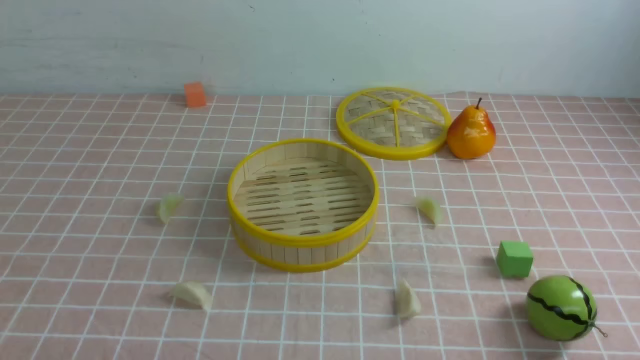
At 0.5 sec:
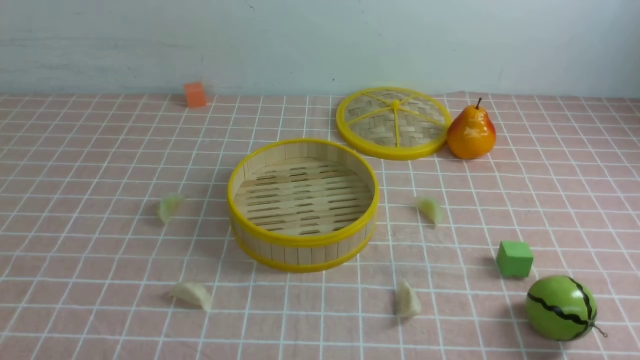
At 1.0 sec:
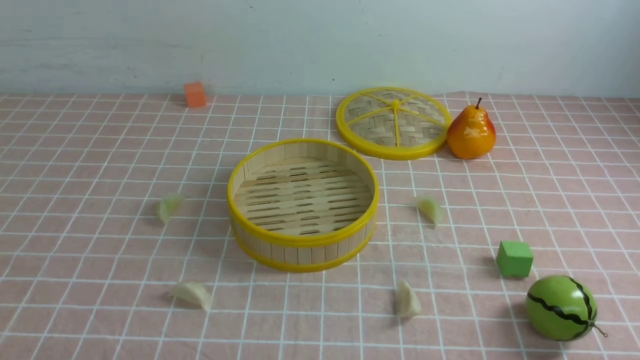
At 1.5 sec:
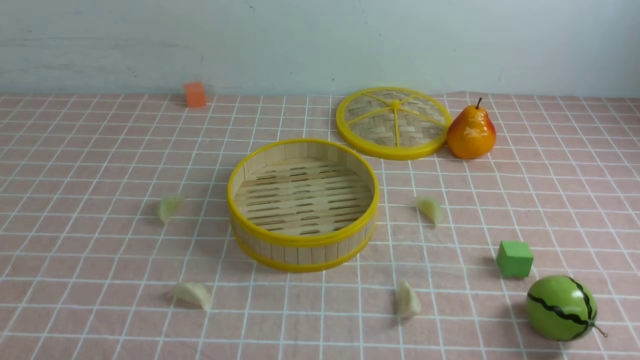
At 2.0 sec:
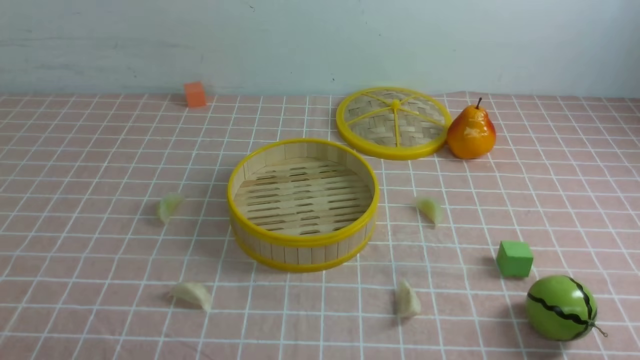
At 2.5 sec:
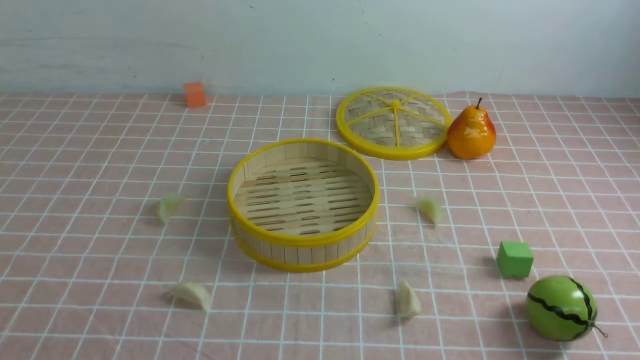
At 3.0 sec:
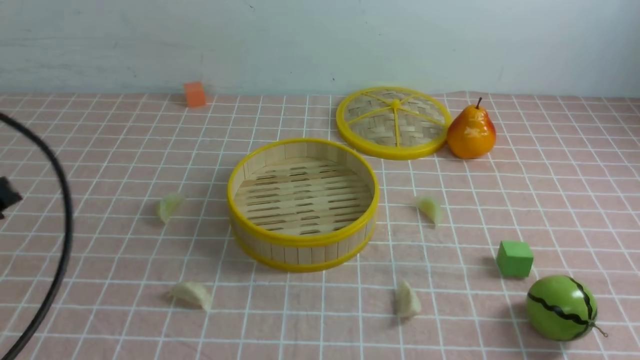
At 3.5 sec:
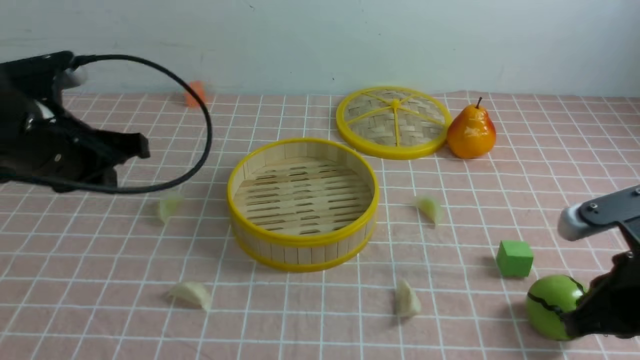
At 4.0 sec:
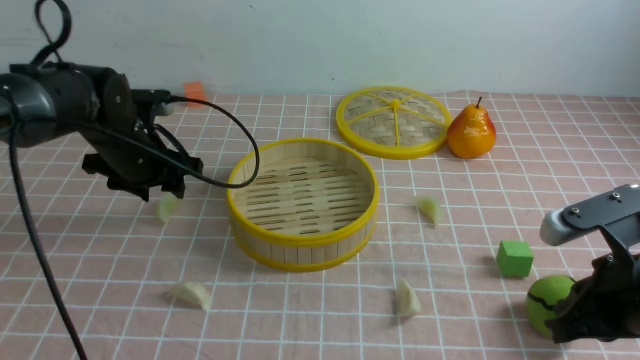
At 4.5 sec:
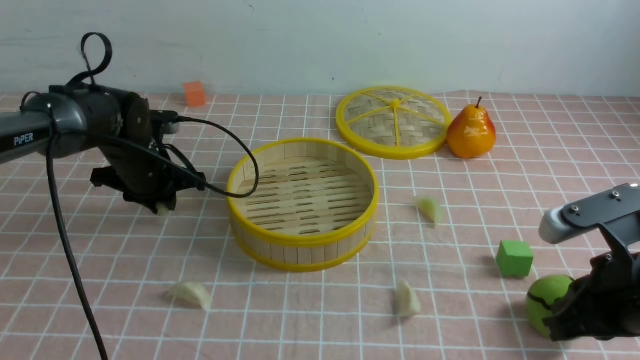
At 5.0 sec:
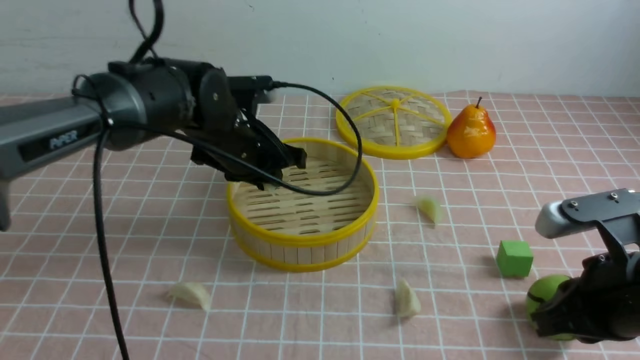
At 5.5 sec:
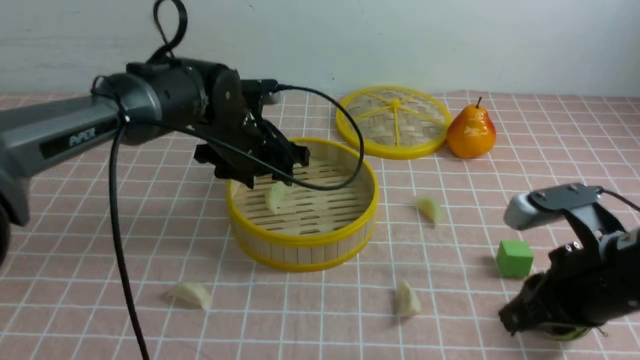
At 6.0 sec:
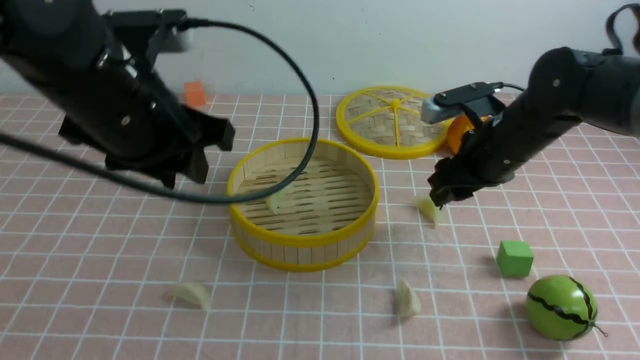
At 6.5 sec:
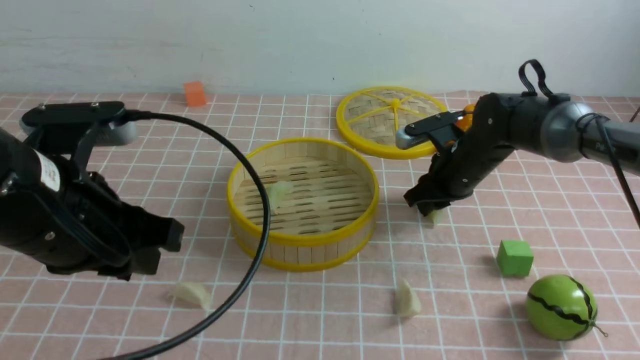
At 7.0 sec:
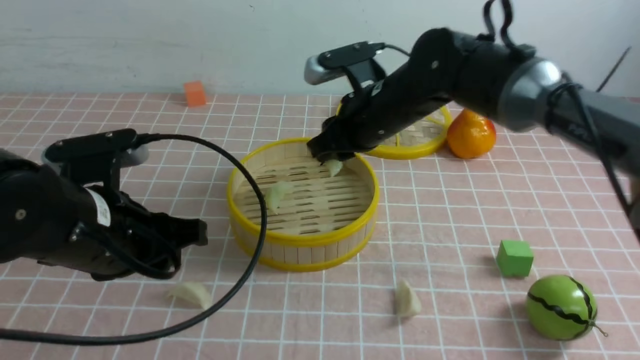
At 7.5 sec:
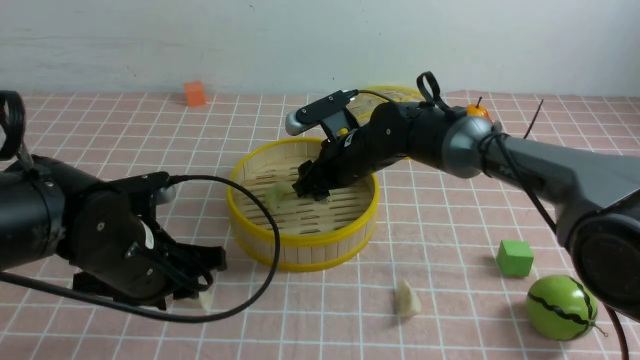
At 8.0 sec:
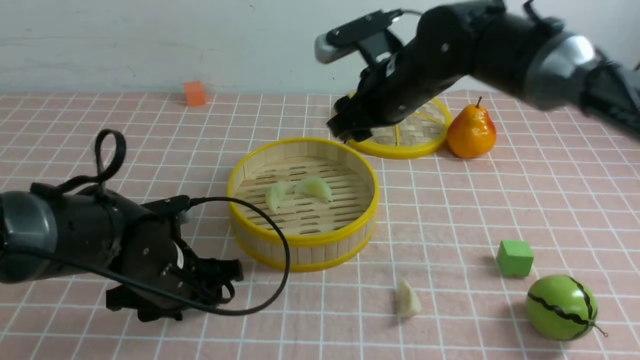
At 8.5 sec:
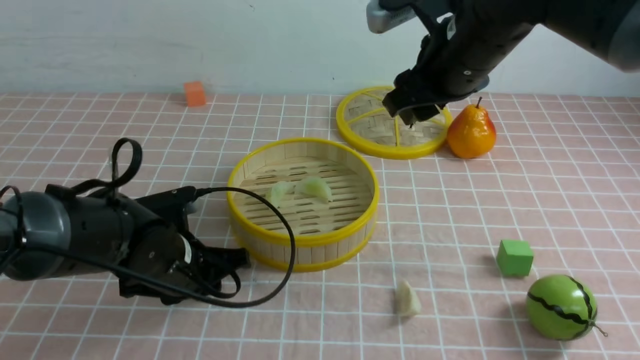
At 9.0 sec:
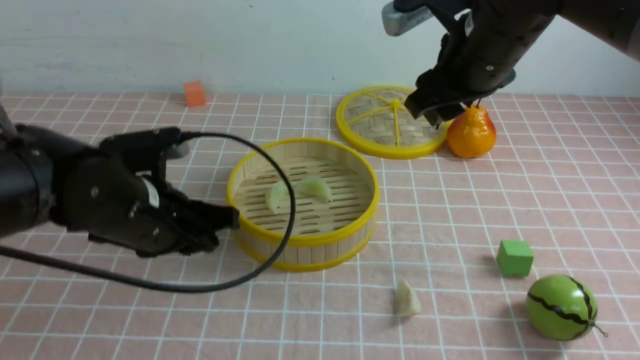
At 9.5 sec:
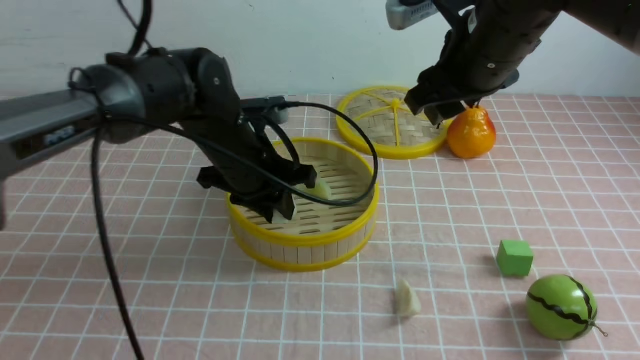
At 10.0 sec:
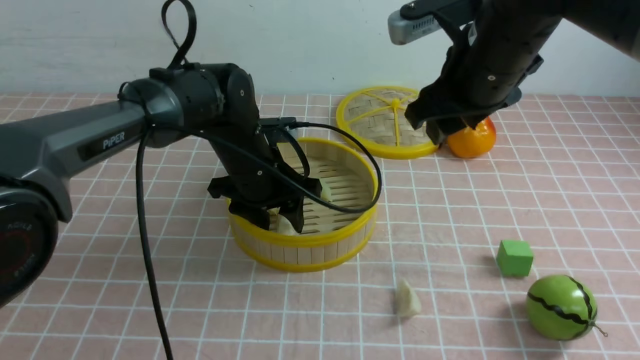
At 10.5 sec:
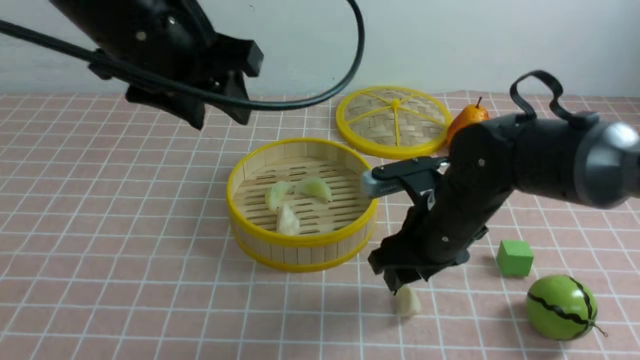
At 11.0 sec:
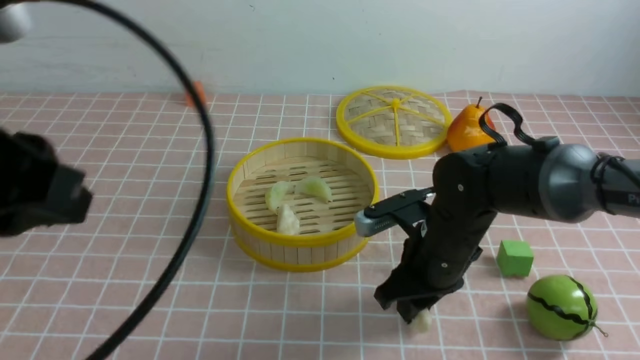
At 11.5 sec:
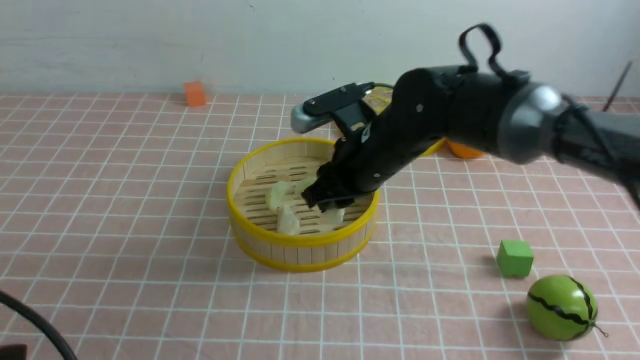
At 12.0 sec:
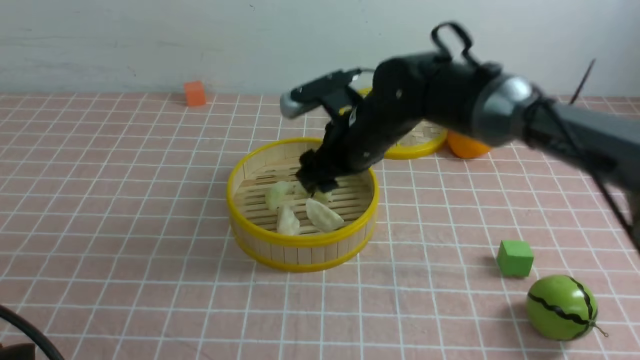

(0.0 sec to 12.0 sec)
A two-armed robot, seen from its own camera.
Task of the whole recording: put the dumplings into the steamer on the table with the pink tablecloth.
Step, 0.0 sec - 4.5 sec: use the left arm to grab a dumpling.
Step, 5.5 sec - 6.5 sec: use the right arm to grab a dumpling.
Step, 7.0 sec - 7.5 sec: use the right arm to put the dumpling into the steamer.
Step, 8.0 sec - 8.5 sec: use the left arm to grab a dumpling.
Step, 9.0 sec - 10.0 sec: use the left arm to put the dumpling into the steamer.
Step, 10.5 sec - 11.0 sec: use the right arm to grab a dumpling.
2.0 sec - 4.0 sec: The right gripper travels forward by approximately 15 cm. Meanwhile the left gripper heads forward, covering approximately 40 cm, and opens its fingers.
4.0 sec - 6.0 sec: The right gripper goes roughly 20 cm forward, and opens; the left gripper is displaced upward, backward and to the right by approximately 20 cm.
6.0 sec - 8.0 sec: The right gripper goes some 15 cm to the left and upward, and closes, then reopens; the left gripper shifts about 20 cm downward.
8.0 sec - 10.0 sec: The left gripper shifts approximately 15 cm forward, to the right and upward, and closes, then reopens, while the right gripper heads backward and to the right, covering about 5 cm.
10.0 sec - 12.0 sec: The right gripper travels to the left by approximately 10 cm, and reaches some 15 cm downward, then returns, while the left gripper heads backward and to the left, covering approximately 35 cm, and closes up.

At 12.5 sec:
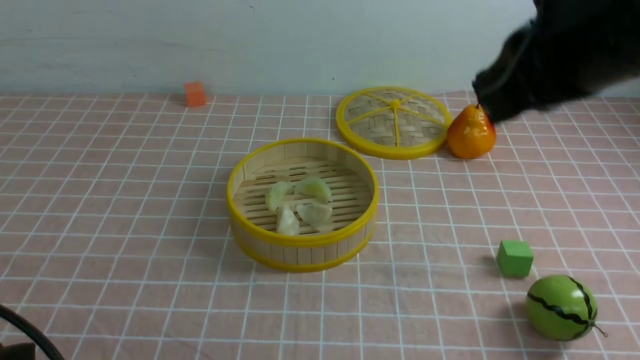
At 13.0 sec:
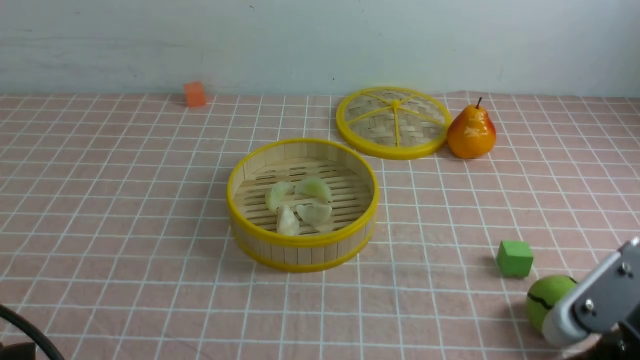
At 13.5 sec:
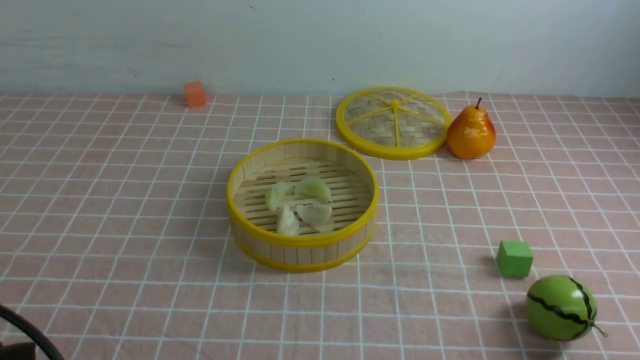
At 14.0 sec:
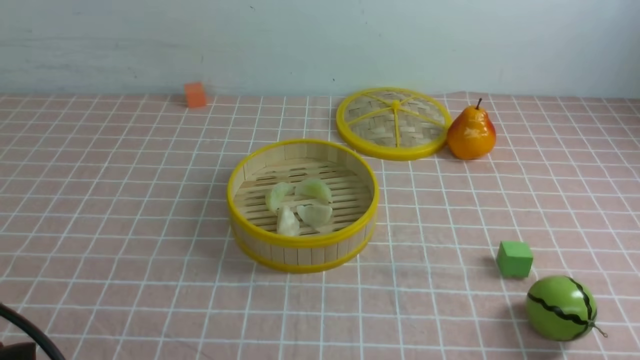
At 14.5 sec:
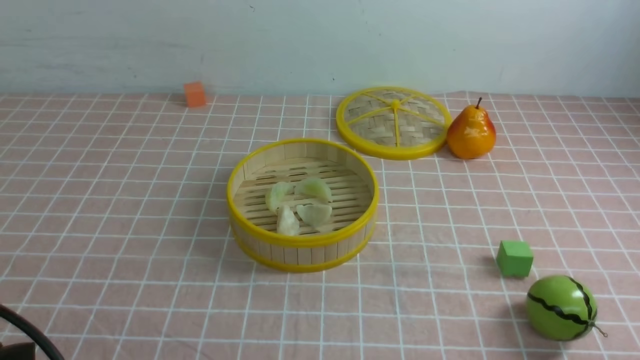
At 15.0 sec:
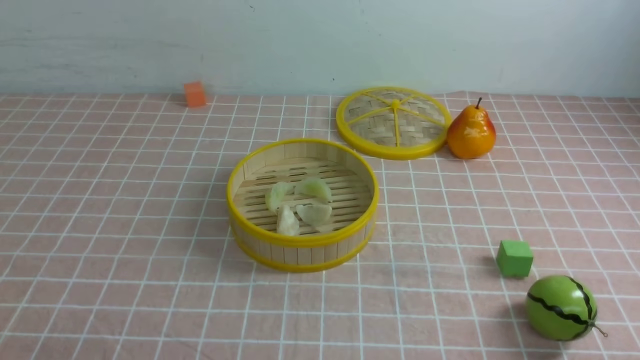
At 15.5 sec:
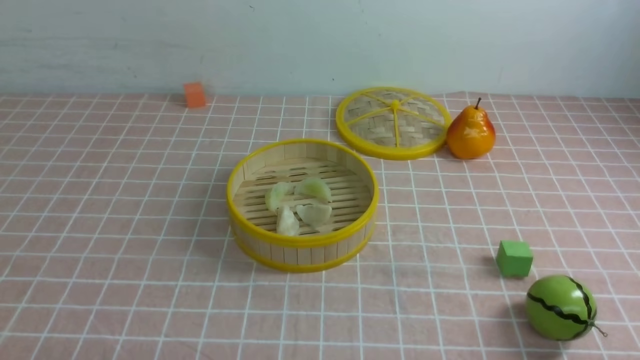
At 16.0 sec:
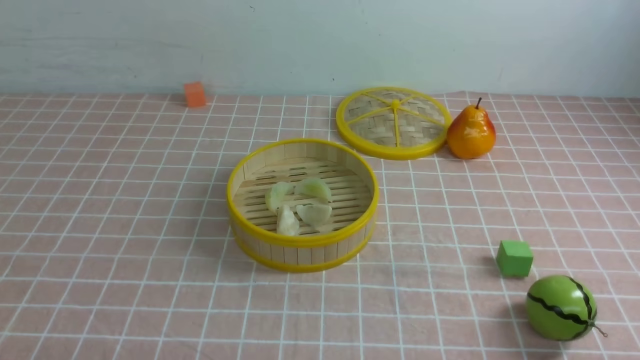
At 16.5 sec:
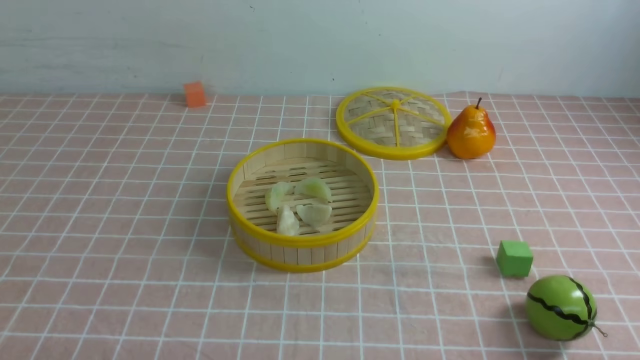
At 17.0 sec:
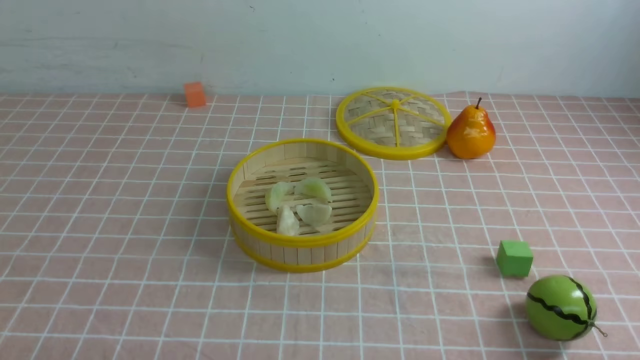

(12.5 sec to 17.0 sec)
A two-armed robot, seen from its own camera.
Task of the whole recording: put the dumplings into the steamer on the table with the pink tablecloth.
12.5 sec - 14.5 sec: The right gripper moves downward, backward and to the right, some 35 cm.
14.5 sec - 17.0 sec: The left gripper goes roughly 10 cm downward, and closes up.

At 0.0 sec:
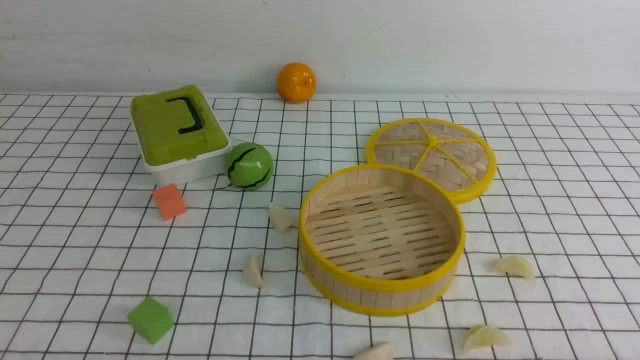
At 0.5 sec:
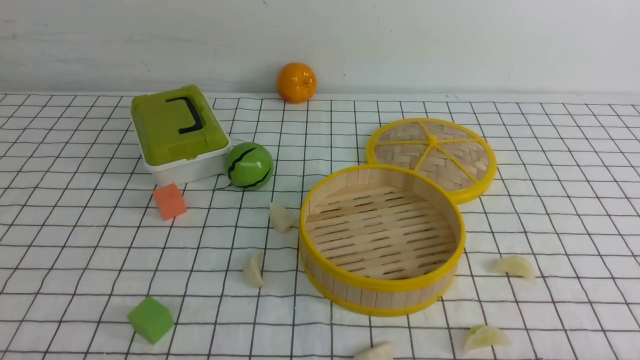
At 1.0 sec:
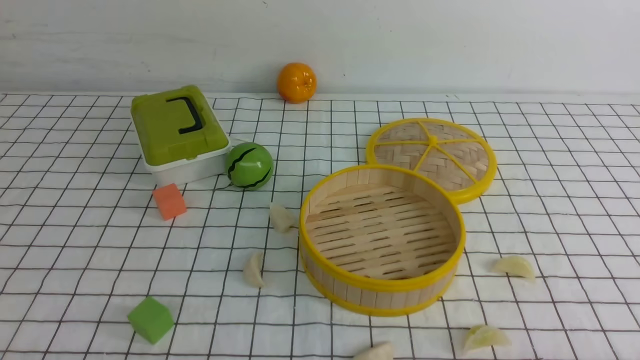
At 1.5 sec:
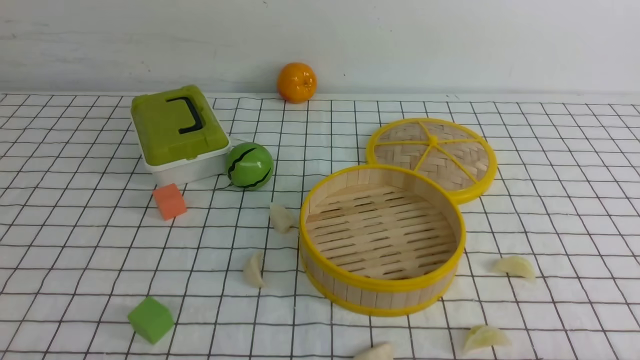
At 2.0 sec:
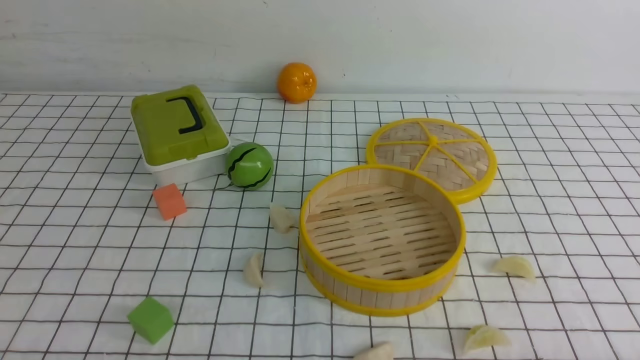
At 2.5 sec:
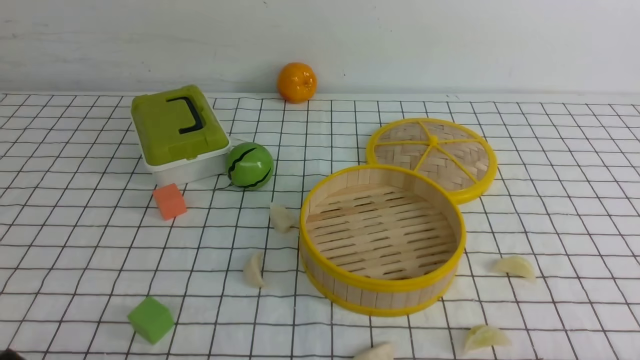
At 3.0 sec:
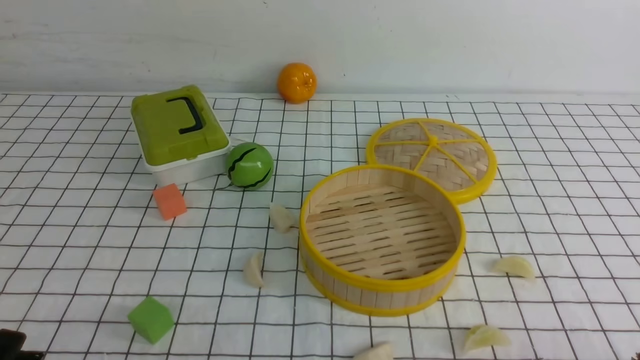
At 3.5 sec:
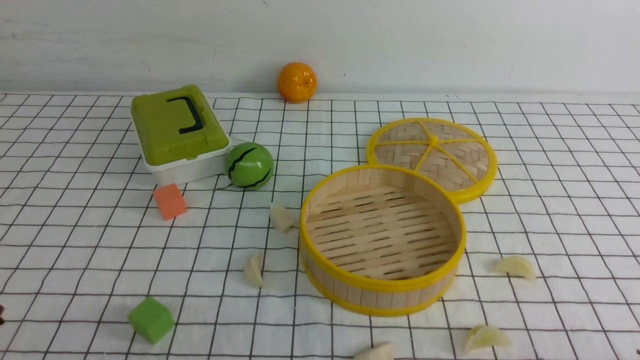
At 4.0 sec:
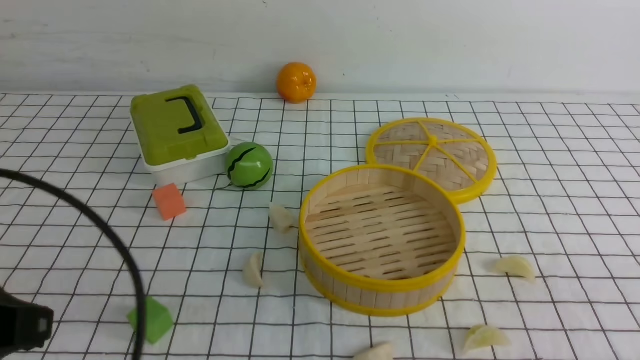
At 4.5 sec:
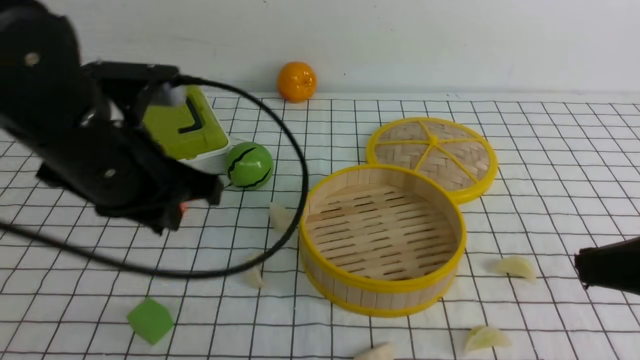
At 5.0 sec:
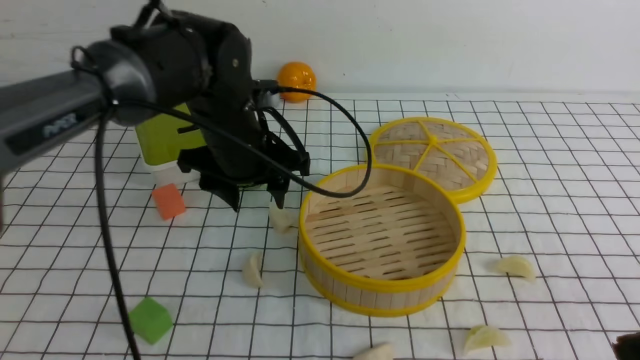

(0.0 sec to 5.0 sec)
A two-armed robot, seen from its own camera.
Task of the whole recording: put the dumplings into the steamer on the table with the white tablecloth.
2.5 sec - 5.0 sec: The right gripper heads upward and forward, covering about 20 cm, and closes. Meanwhile the left gripper is displaced forward and to the right by roughly 40 cm, and opens its fingers.
